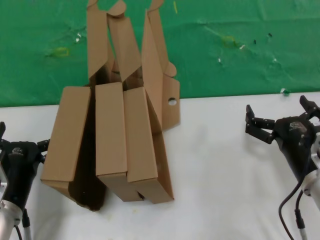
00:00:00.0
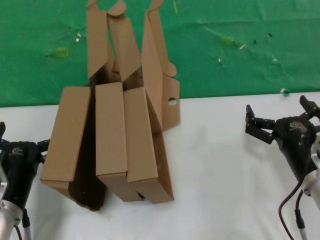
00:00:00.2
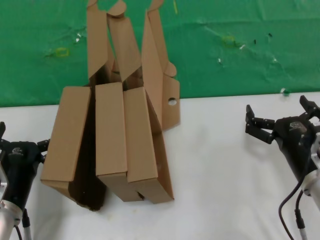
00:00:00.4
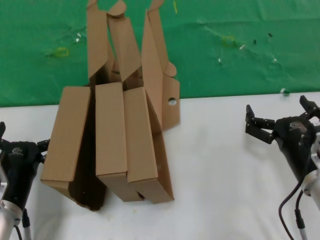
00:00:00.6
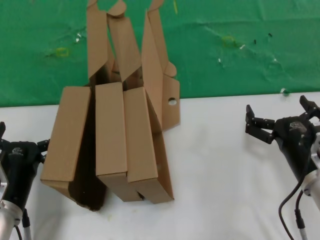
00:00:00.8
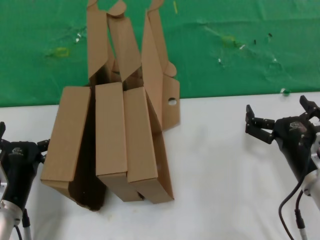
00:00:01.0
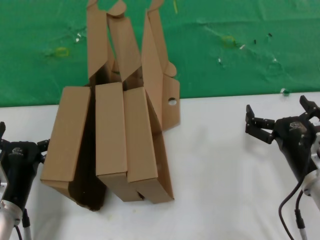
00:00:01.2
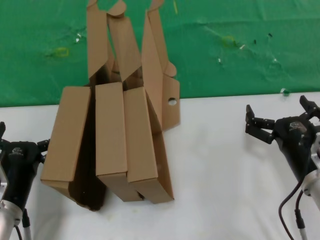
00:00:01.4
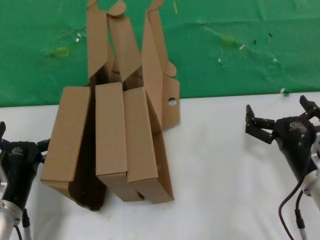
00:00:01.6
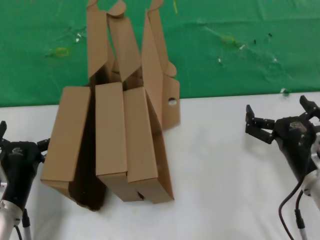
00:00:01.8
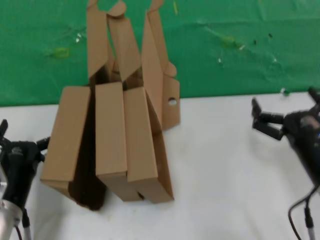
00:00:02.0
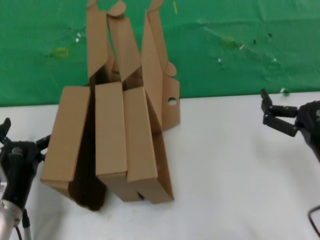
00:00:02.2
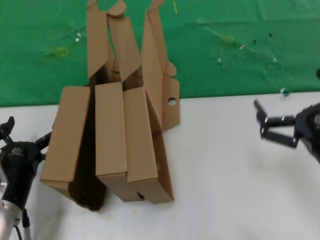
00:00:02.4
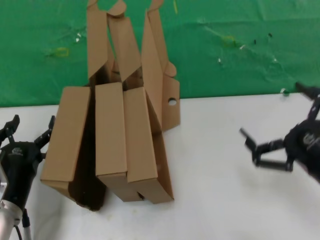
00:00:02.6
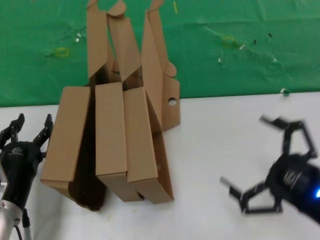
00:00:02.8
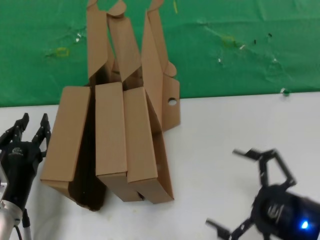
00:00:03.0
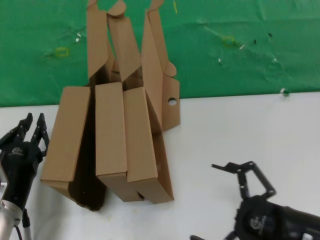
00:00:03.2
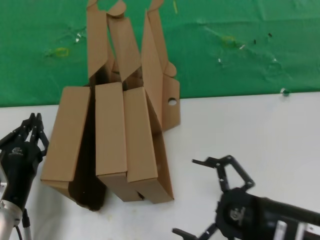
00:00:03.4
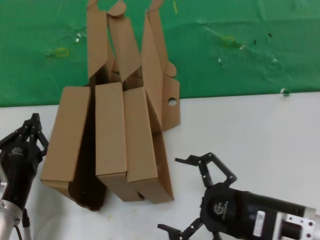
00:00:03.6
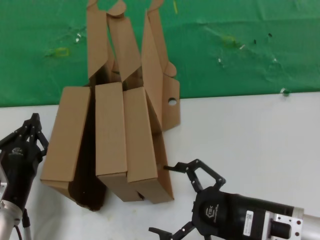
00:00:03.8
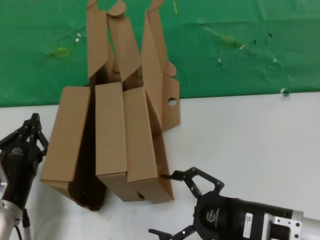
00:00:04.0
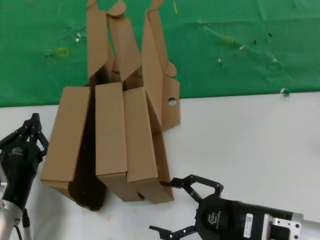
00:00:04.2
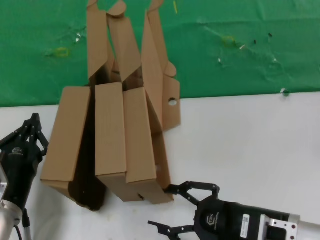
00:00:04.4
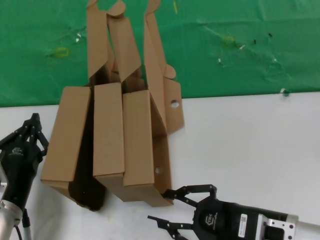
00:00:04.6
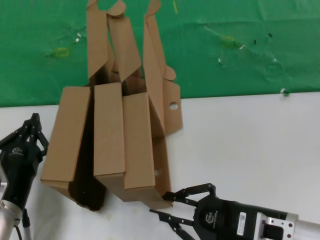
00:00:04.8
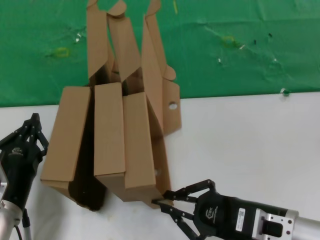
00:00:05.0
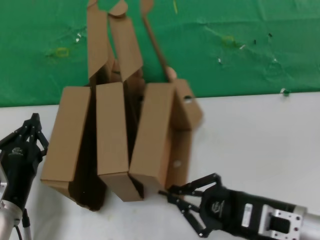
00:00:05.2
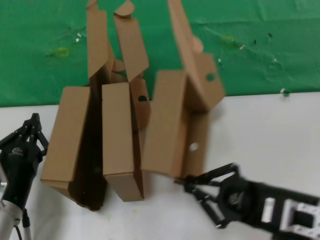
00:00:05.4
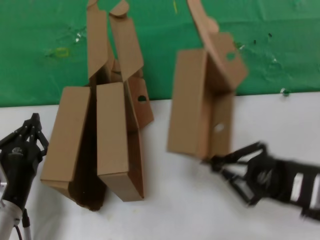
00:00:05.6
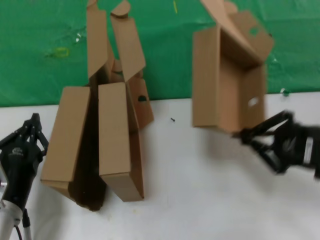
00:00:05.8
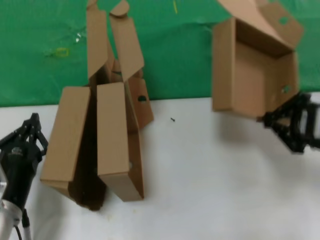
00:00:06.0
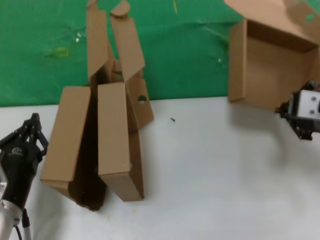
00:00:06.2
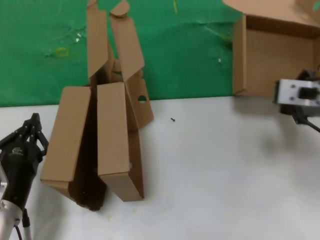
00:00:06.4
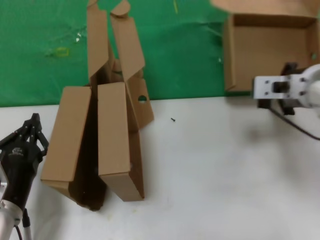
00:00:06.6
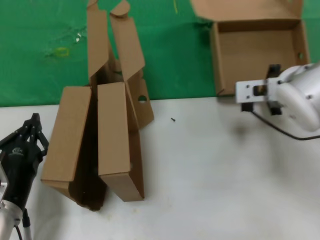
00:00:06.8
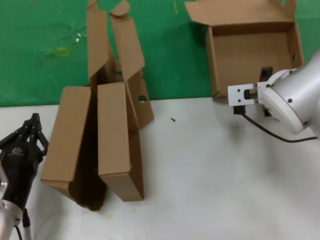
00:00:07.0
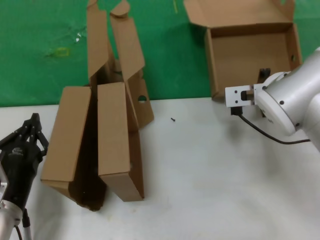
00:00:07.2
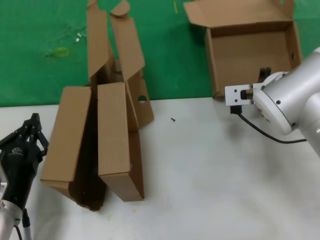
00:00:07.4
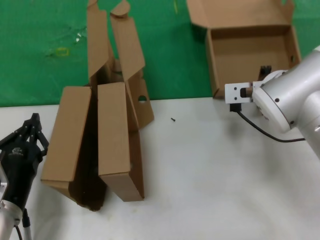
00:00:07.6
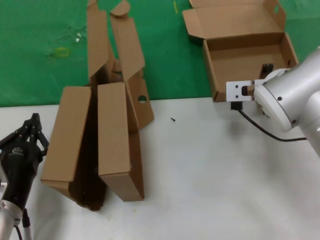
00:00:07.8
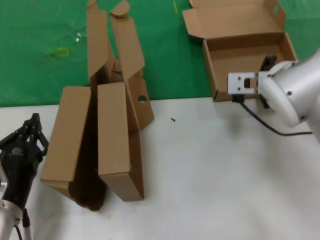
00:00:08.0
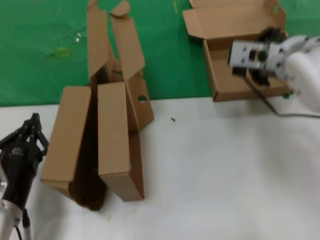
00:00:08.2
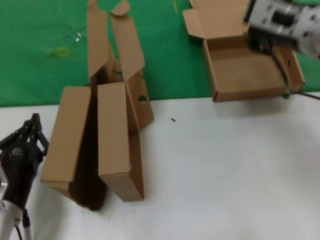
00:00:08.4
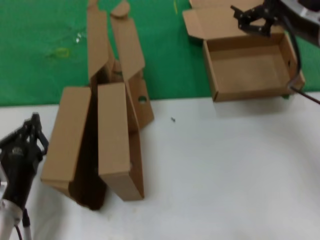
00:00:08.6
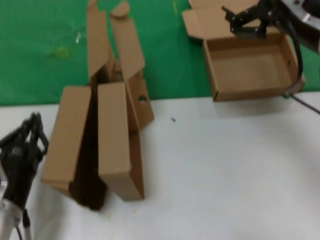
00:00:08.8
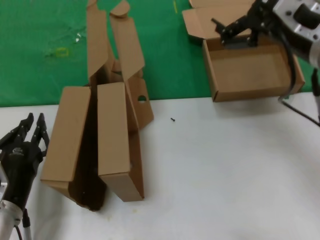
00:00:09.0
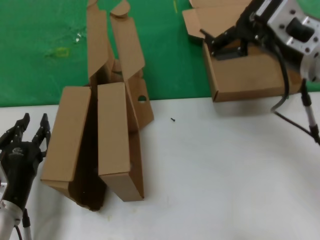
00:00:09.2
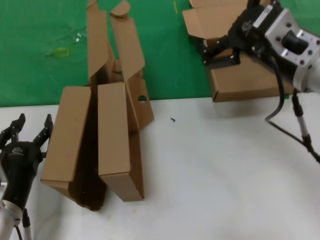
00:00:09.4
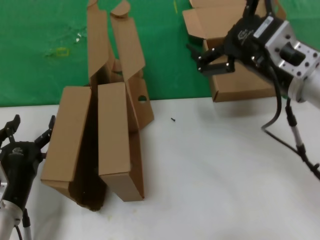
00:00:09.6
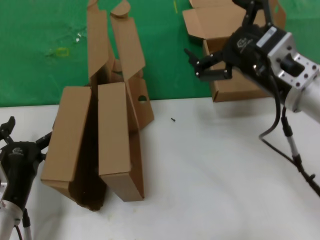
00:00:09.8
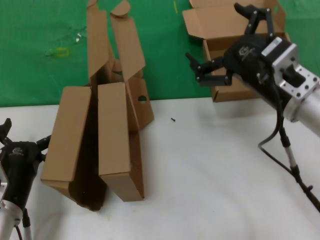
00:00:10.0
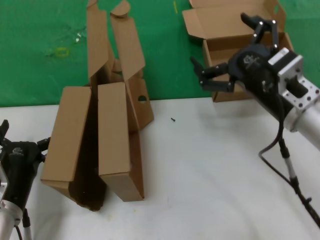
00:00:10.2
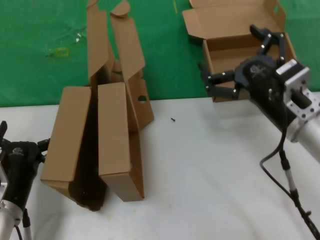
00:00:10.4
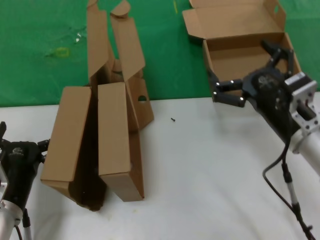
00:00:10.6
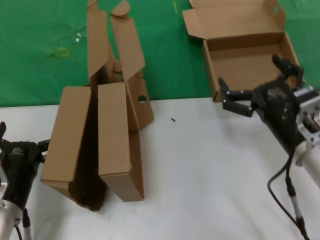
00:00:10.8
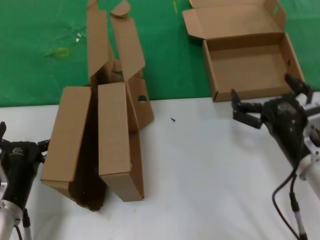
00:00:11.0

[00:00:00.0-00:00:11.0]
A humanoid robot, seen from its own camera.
Task of the whole recording: pick up the paper box and put it at the back.
Step, 00:00:00.0 to 00:00:05.0: Grasp the paper box.
Step, 00:00:05.2 to 00:00:08.0: Place the paper box on the table.
00:00:00.0 to 00:00:01.6: The two hands keep their place.
00:00:01.6 to 00:00:03.2: The right hand is displaced backward and upward by about 15 cm.
00:00:03.2 to 00:00:04.8: The right hand moves forward and to the left, about 10 cm.
00:00:04.8 to 00:00:06.2: The right hand shifts some 20 cm upward.
00:00:06.2 to 00:00:07.8: The right hand heads forward and to the left, covering approximately 15 cm.
00:00:07.8 to 00:00:09.4: The right hand moves backward and upward, approximately 10 cm.
00:00:09.4 to 00:00:11.0: The right hand travels downward by about 20 cm.
